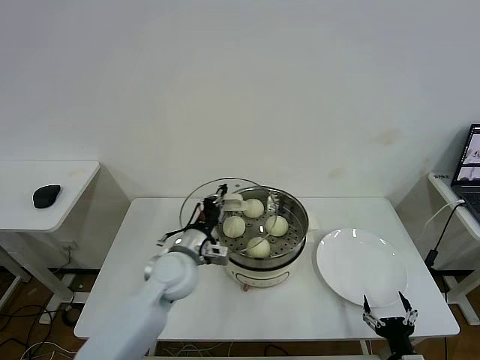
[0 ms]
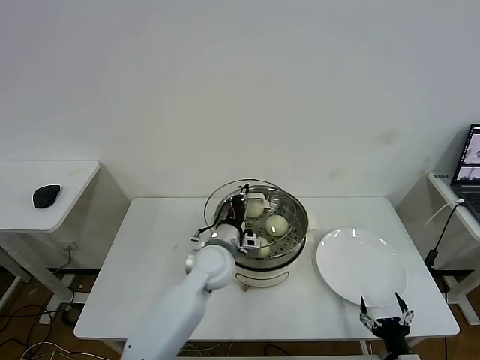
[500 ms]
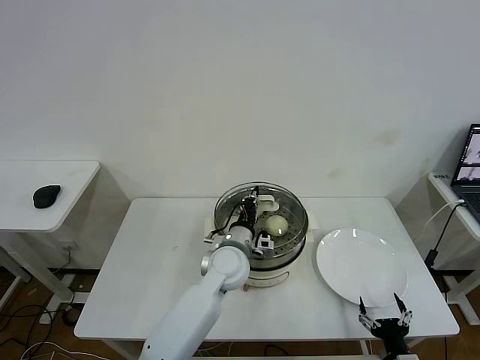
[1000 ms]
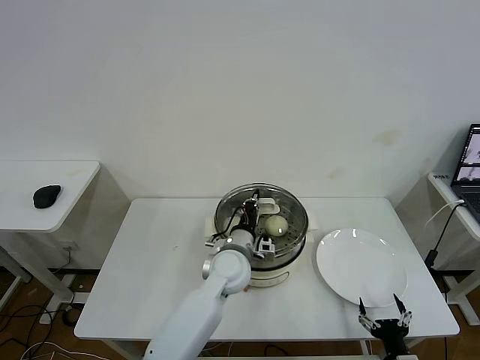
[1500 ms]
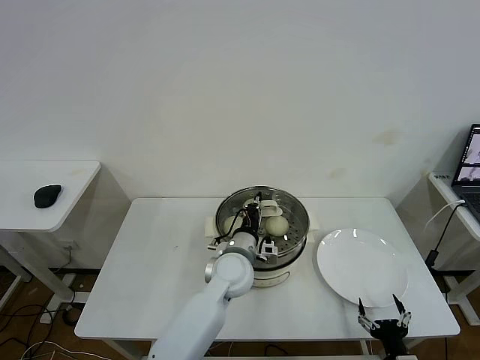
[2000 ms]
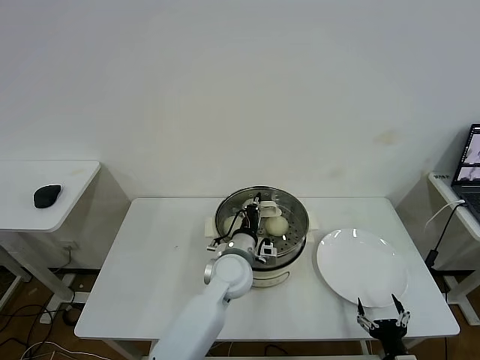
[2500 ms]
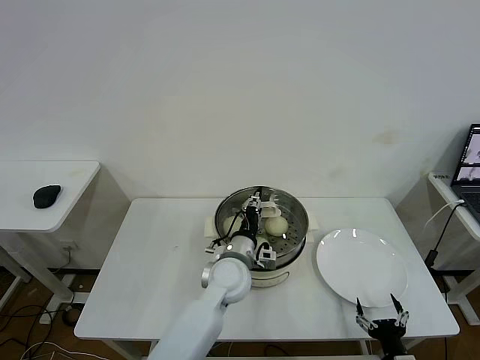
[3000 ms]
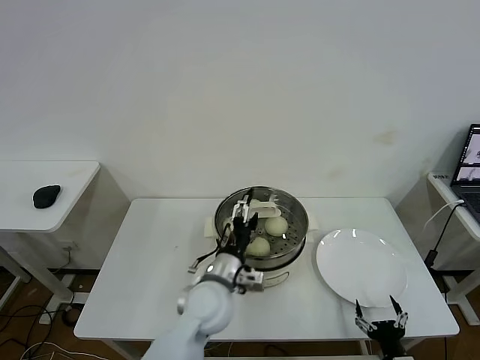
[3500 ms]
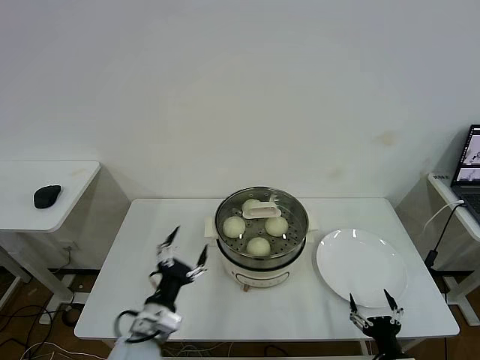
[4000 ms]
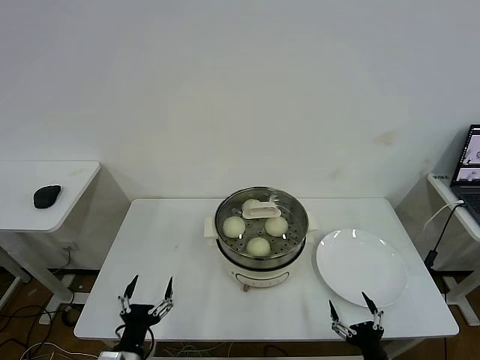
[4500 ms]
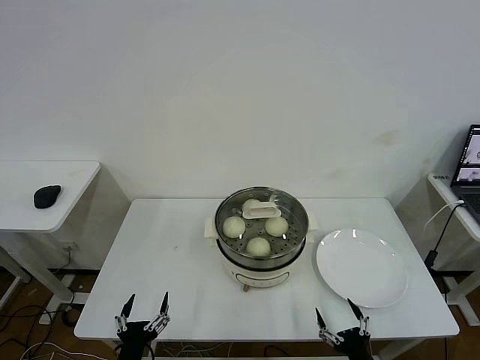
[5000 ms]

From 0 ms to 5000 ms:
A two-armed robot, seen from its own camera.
Task of the whole recording: take steamed baozi put them in steamer then cover it.
Step, from 0 ms to 3000 ms: Place the pot lid on the steamer with left gripper.
From 0 ms to 2500 ms: The left gripper moves to the right, some 15 cm.
From 2500 ms to 5000 ms: The right gripper heads to the left, covering roughly 5 cm. Meanwhile the left gripper travels backward and to the left by roughly 35 cm, and opens.

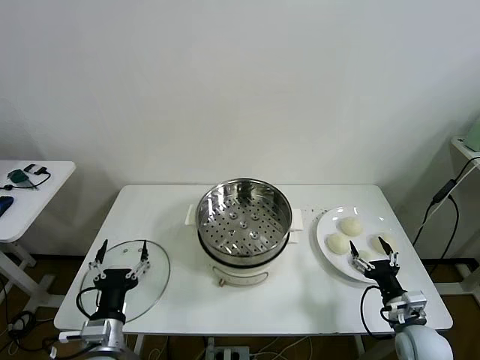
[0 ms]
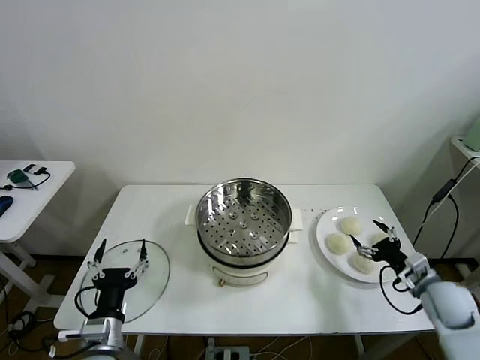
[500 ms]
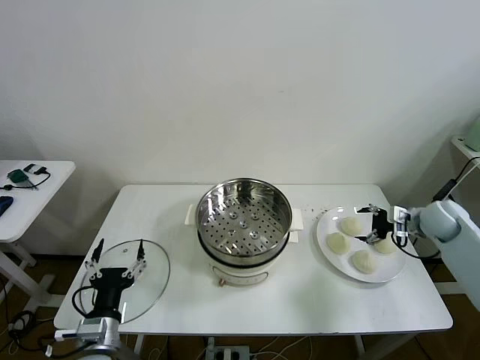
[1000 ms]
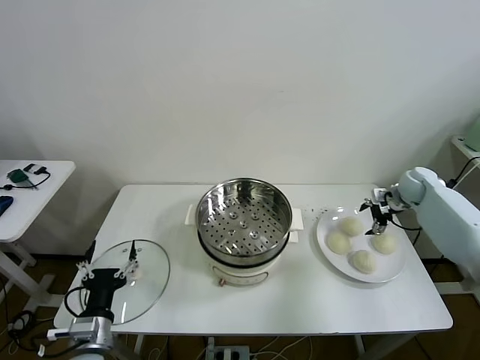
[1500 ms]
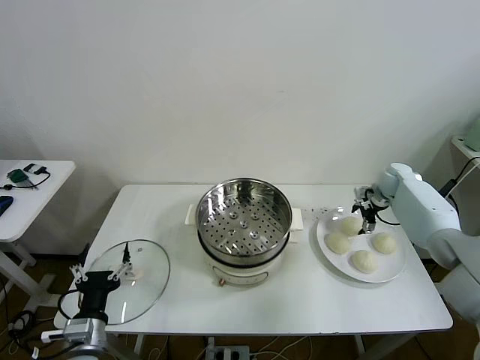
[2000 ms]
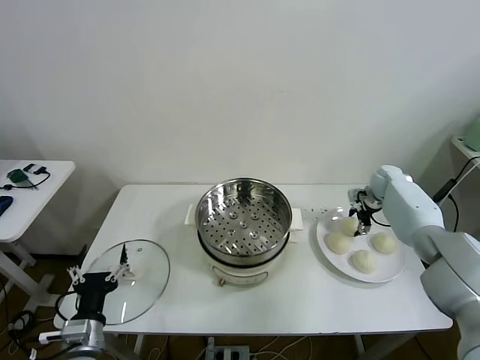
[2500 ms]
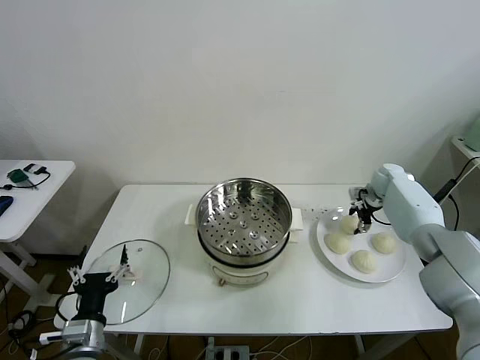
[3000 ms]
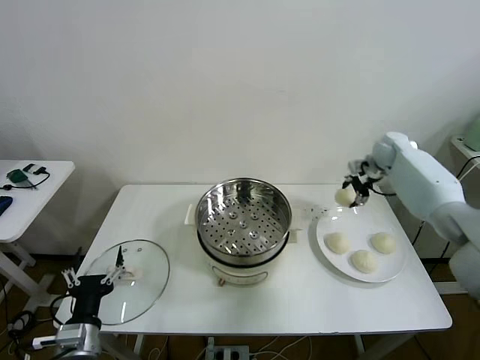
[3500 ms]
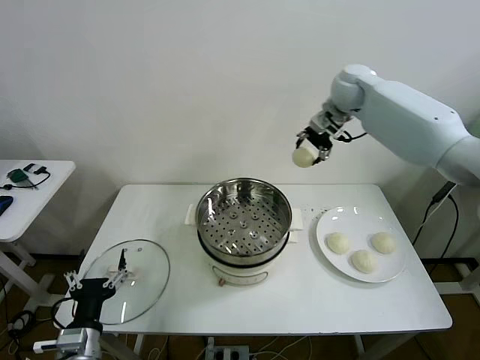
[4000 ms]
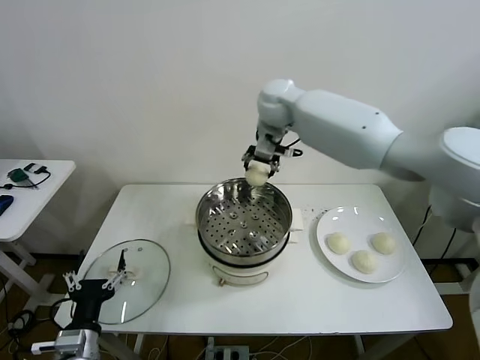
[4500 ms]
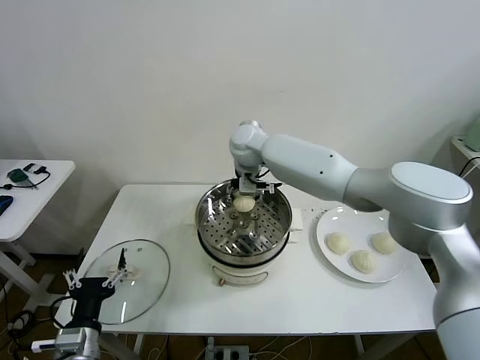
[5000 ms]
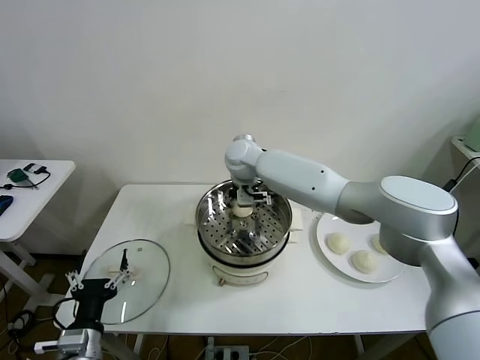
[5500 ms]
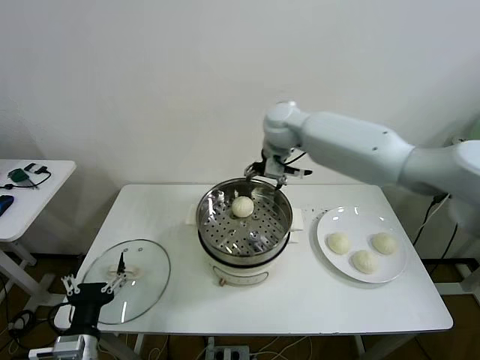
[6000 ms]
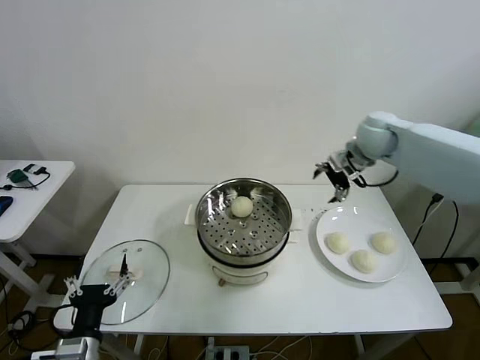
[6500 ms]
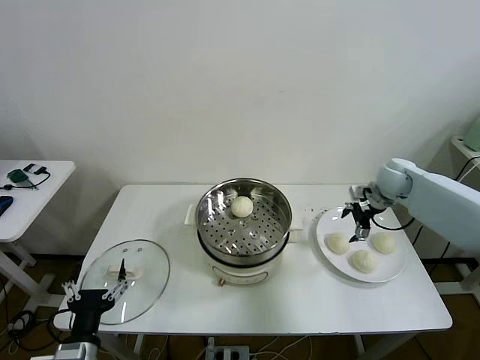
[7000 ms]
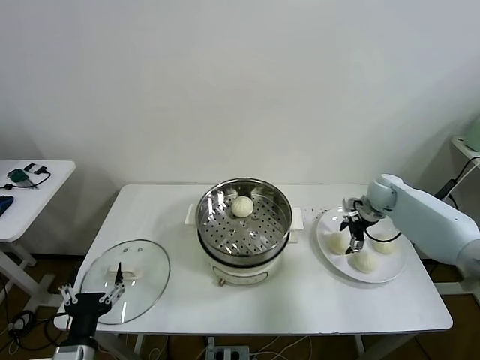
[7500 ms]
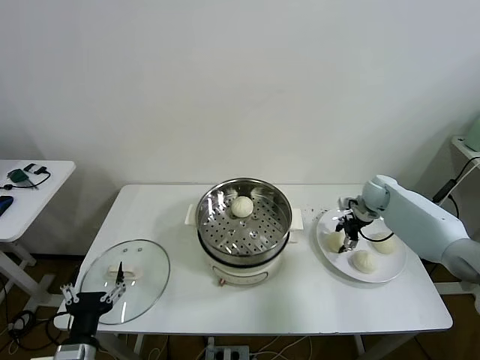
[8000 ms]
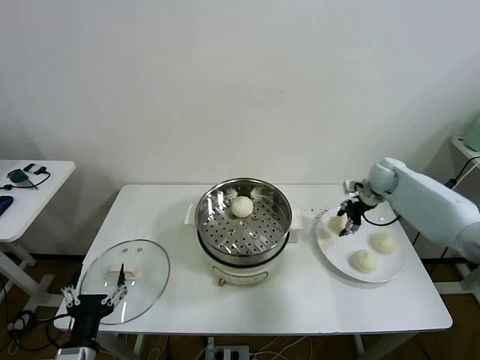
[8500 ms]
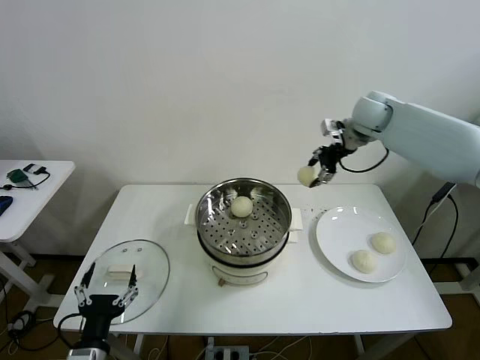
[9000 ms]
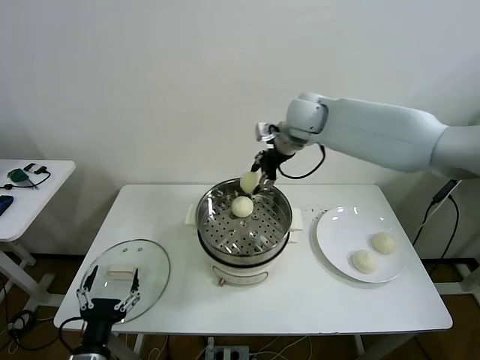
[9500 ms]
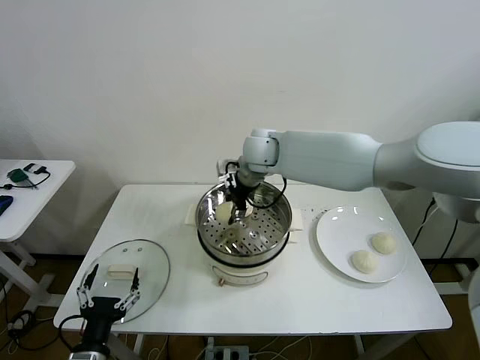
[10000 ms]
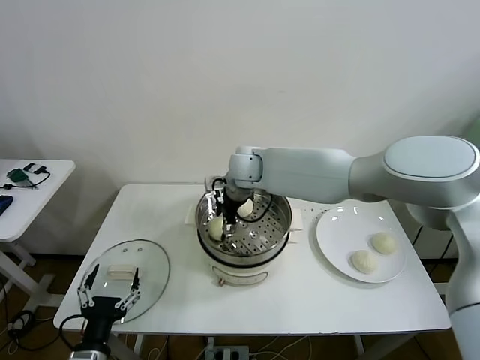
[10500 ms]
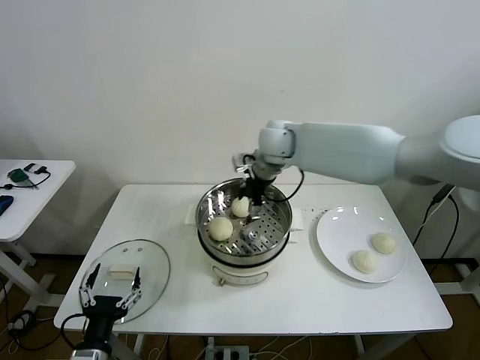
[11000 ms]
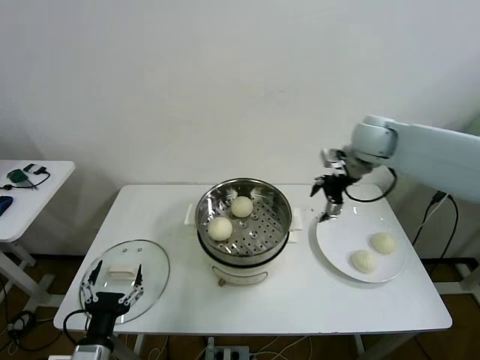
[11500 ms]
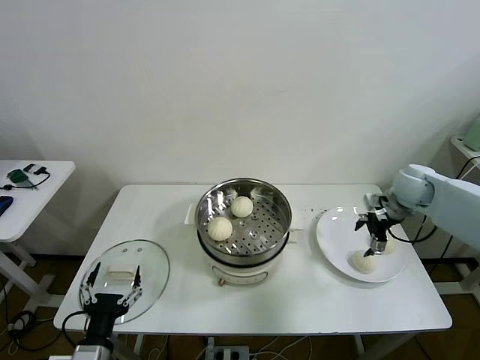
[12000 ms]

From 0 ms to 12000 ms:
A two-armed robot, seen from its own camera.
Task of the whole recording: take steamed baozi put them in steamer then cover it.
Step, from 0 ms to 2500 ms: Grasp the baozi in the plate with right gripper.
Step, from 3500 ms to 5500 ms: Place the baozi on the steamer with right gripper.
Step, from 6000 ms to 7500 ms: Grasp the baozi in the plate with right gripper.
Step, from 8000 ms to 10500 ms: Place the baozi on the steamer with right gripper.
From 2000 ms to 4000 ms: The right gripper travels upward and to the left by about 40 cm, and closes up.
From 4000 ms to 6000 ms: The right gripper goes roughly 5 cm downward, travels to the left and back again, about 15 cm each way, and opens its fingers.
From 6000 ms to 8000 ms: The right gripper heads downward and to the right, covering about 35 cm, and closes up.
From 8000 ms to 10000 ms: The right gripper is displaced to the left and upward by approximately 40 cm.
From 10000 ms to 12000 ms: The right gripper heads to the right, covering about 40 cm, and opens its fingers.

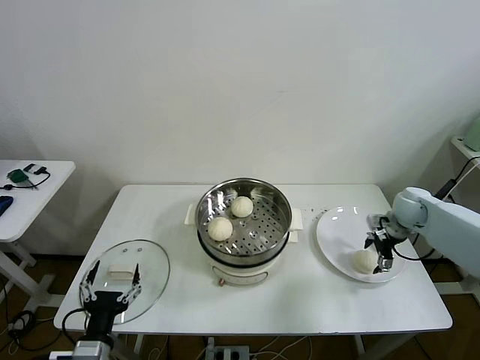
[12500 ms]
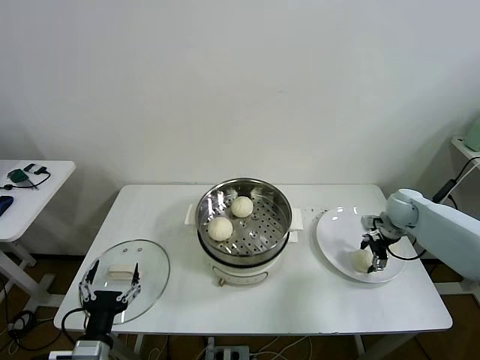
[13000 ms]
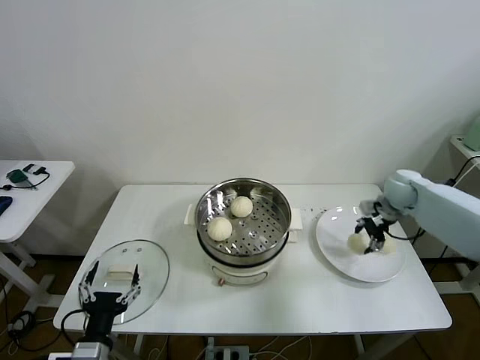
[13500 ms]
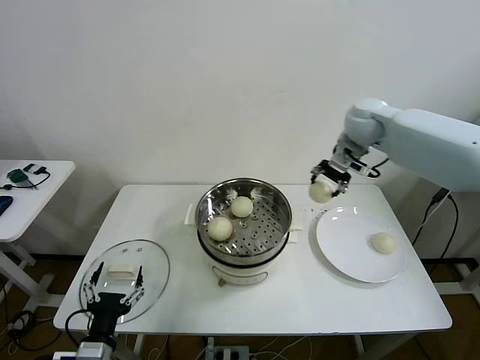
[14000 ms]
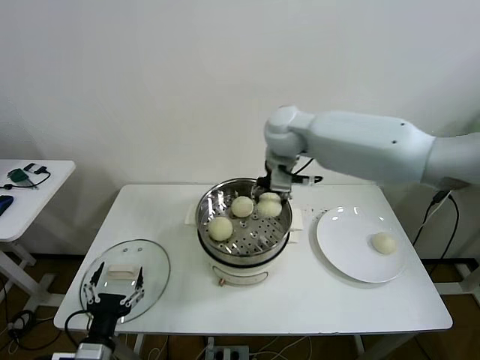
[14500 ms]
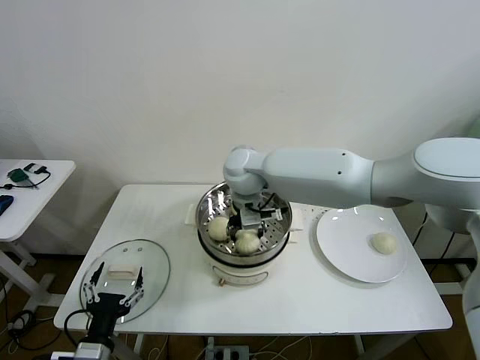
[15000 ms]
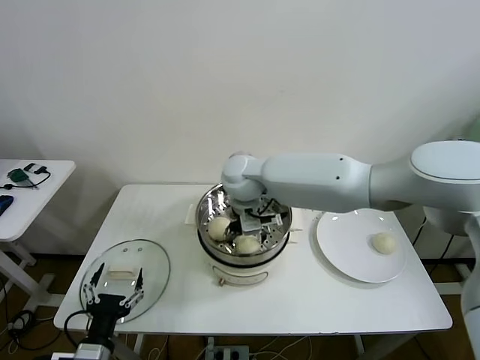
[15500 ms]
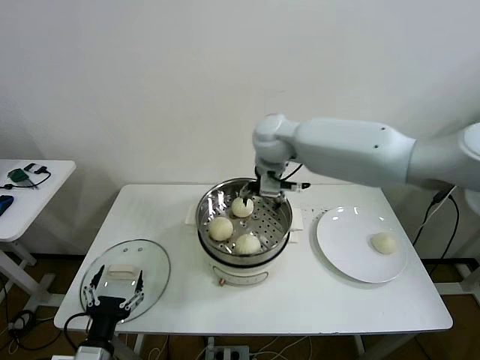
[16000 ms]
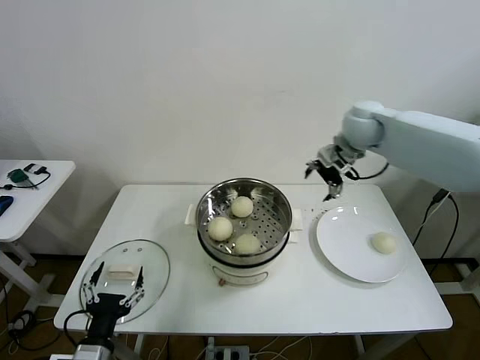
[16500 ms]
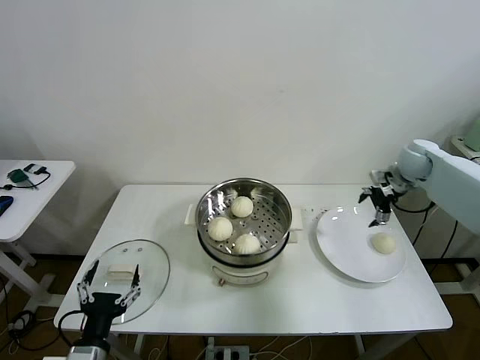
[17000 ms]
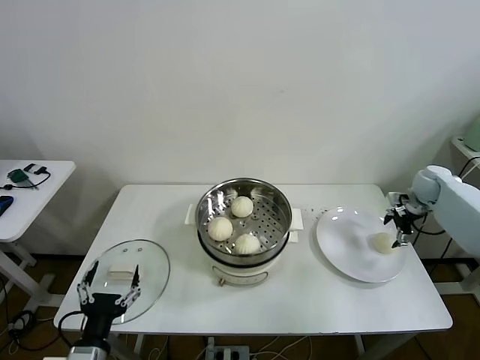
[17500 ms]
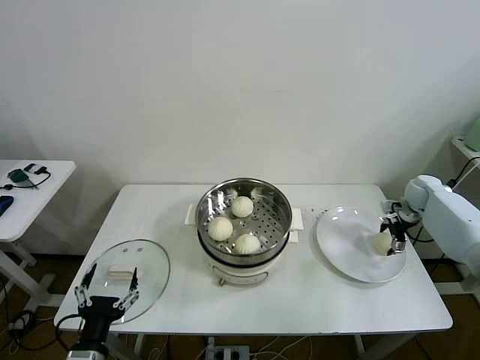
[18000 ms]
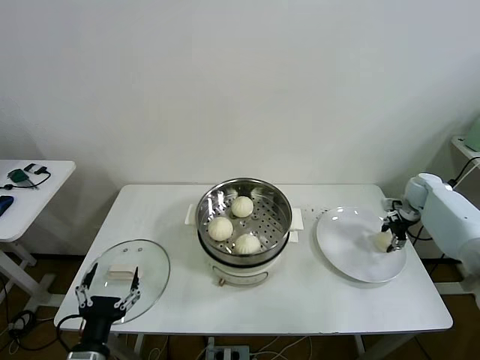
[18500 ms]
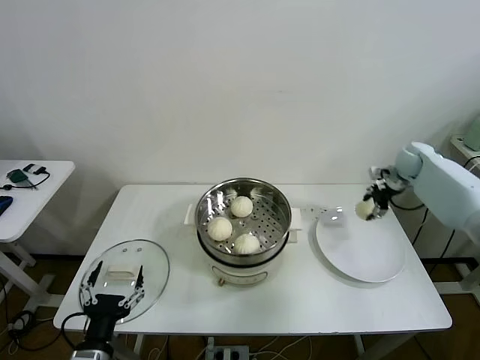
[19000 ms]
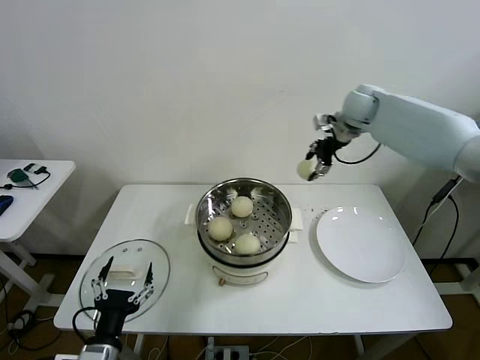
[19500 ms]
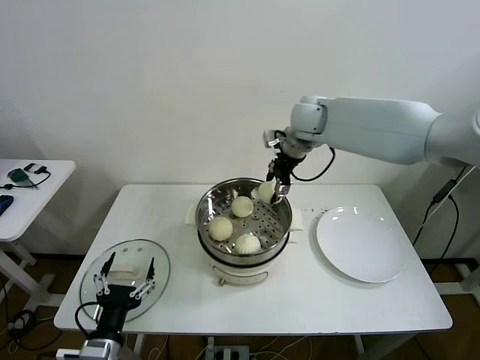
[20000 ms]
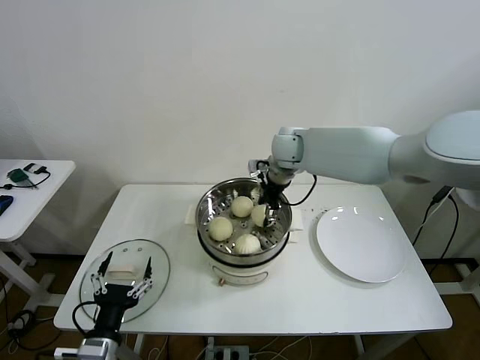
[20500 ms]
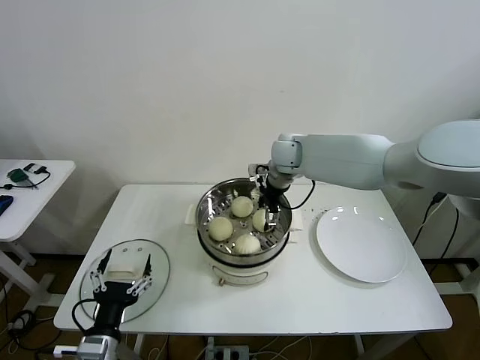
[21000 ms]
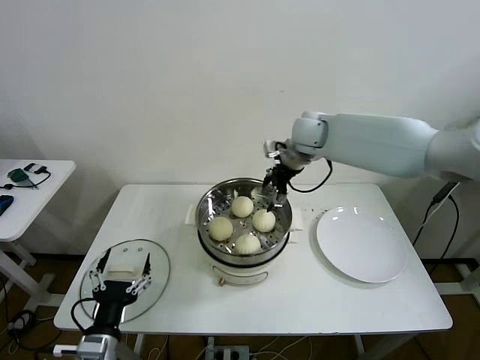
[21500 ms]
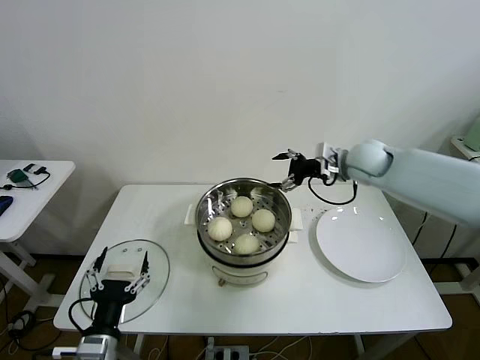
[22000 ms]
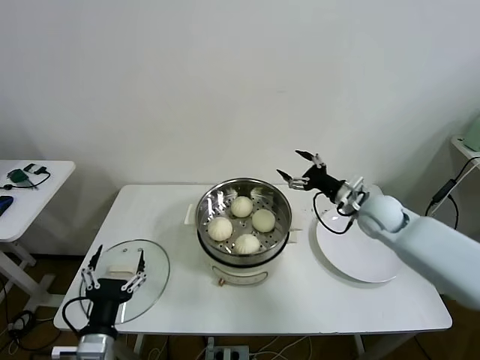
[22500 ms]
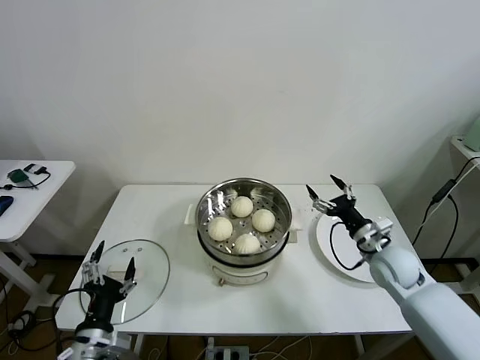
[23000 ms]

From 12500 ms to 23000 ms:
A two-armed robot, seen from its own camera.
Task of the whole recording: take steamed baozi put them in steamer then cover it.
Step, from 13500 ms to 15500 ms: Place the baozi on the steamer with right gripper.
Step, from 16000 ms to 18000 ms: Grasp the baozi in the plate with right gripper.
Step, from 18500 ms to 21000 ms: Place the baozi on the steamer with right gripper.
From 12500 ms to 14500 ms: The right gripper heads to the left and upward, covering about 40 cm, and closes its fingers.
From 14500 ms to 16500 ms: The right gripper heads to the right, covering some 20 cm, and opens.
From 16500 ms to 19000 ms: The right gripper shifts roughly 20 cm to the right and downward, and closes.
From 19000 ms to 21000 ms: The right gripper moves to the left, approximately 35 cm, and opens up.
From 21000 ms to 23000 ms: The right gripper moves to the right, backward and downward, roughly 35 cm.
